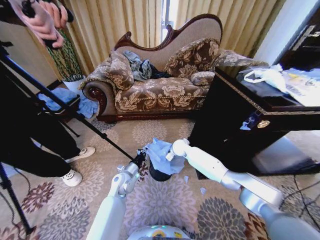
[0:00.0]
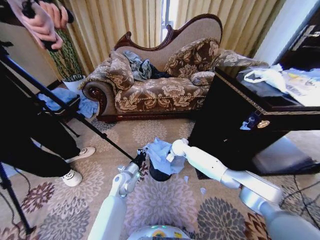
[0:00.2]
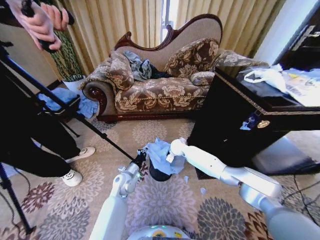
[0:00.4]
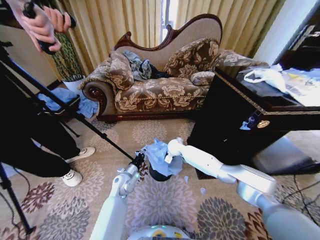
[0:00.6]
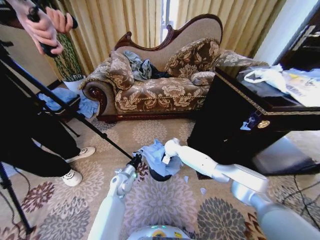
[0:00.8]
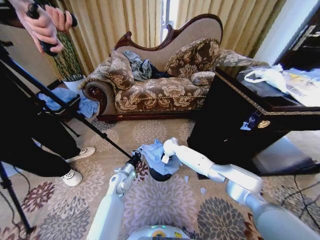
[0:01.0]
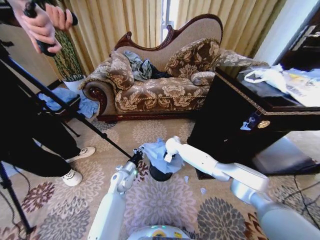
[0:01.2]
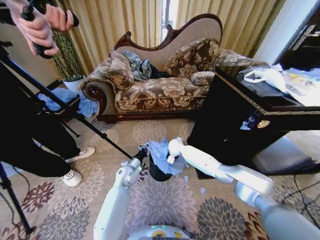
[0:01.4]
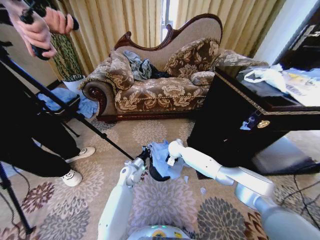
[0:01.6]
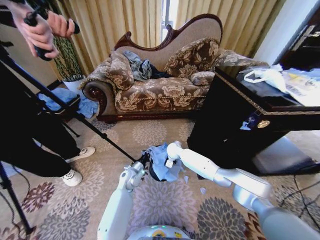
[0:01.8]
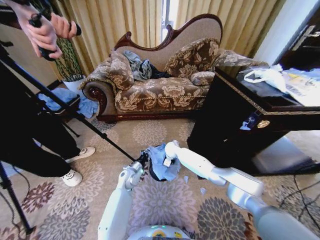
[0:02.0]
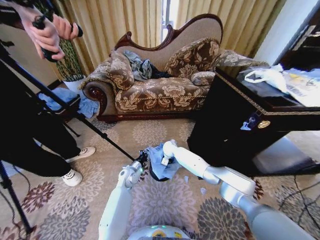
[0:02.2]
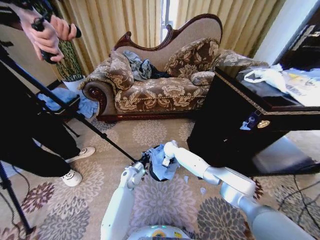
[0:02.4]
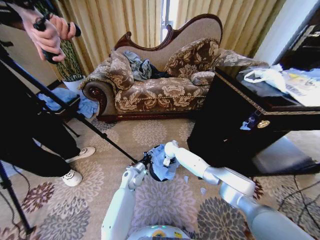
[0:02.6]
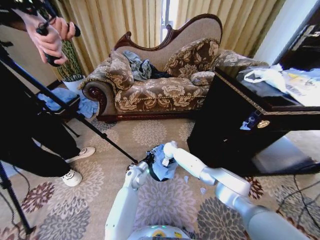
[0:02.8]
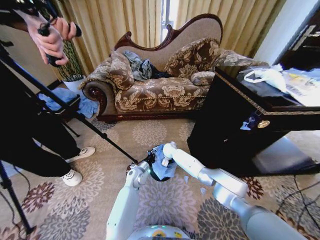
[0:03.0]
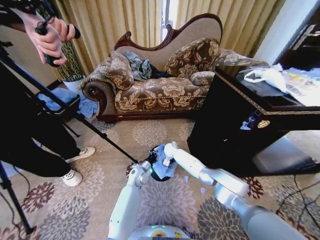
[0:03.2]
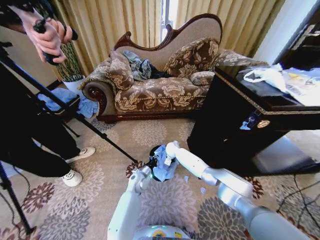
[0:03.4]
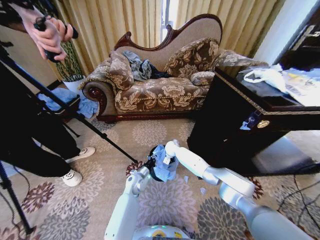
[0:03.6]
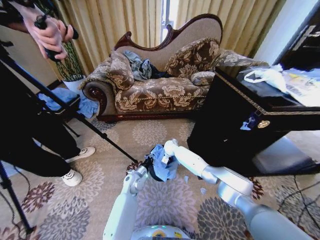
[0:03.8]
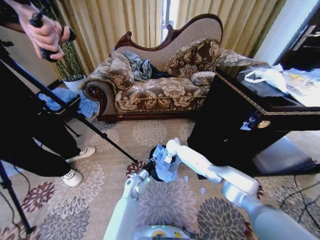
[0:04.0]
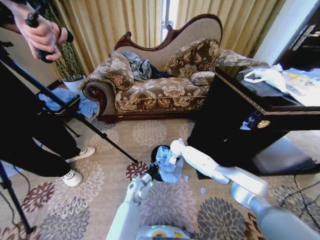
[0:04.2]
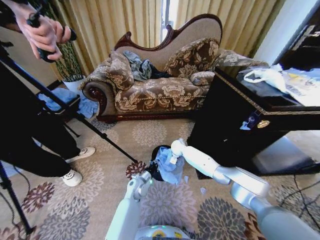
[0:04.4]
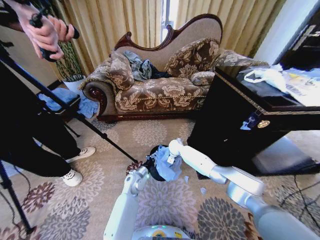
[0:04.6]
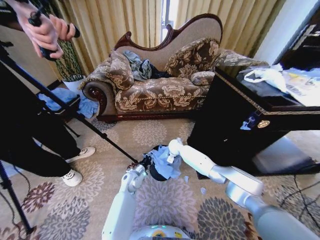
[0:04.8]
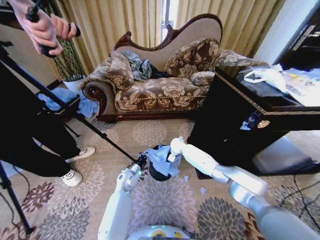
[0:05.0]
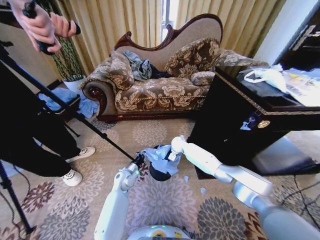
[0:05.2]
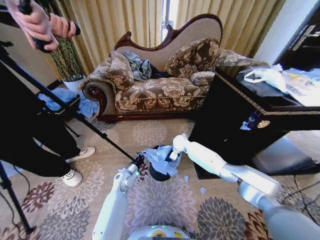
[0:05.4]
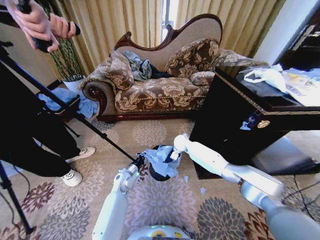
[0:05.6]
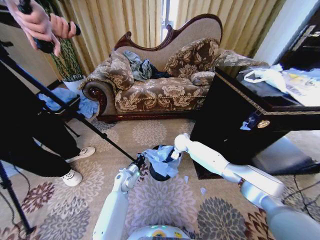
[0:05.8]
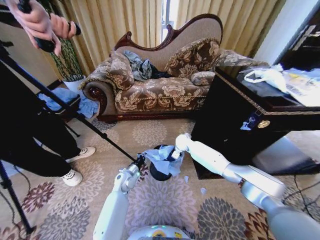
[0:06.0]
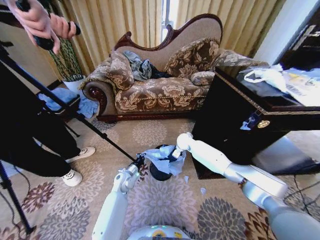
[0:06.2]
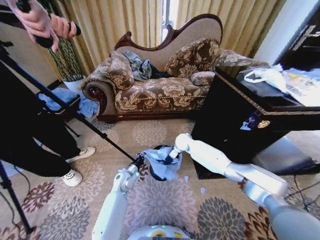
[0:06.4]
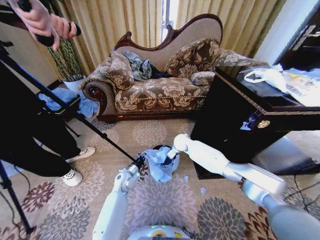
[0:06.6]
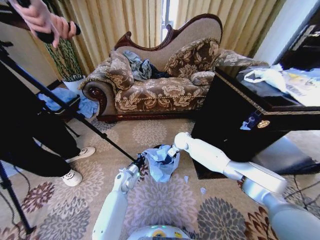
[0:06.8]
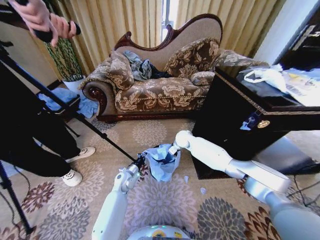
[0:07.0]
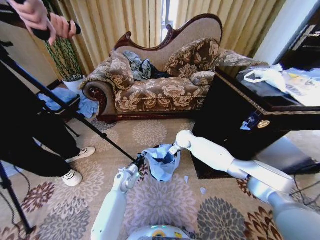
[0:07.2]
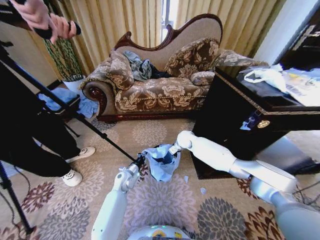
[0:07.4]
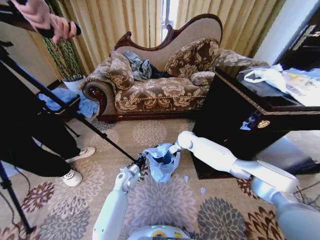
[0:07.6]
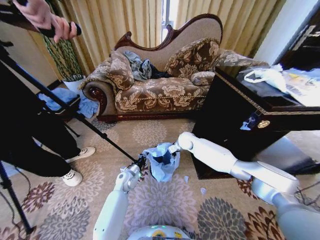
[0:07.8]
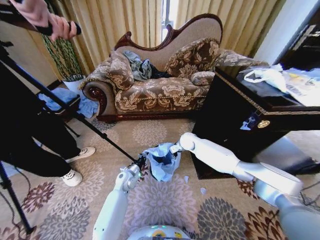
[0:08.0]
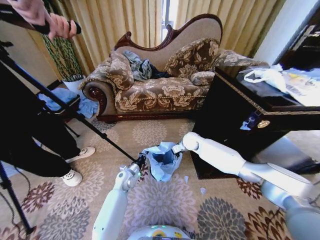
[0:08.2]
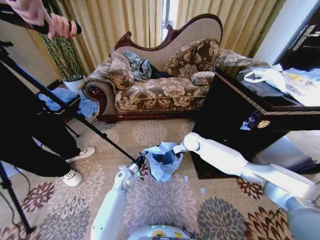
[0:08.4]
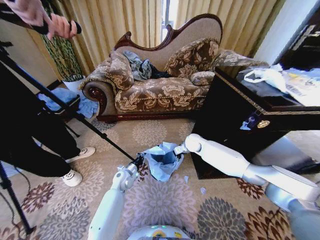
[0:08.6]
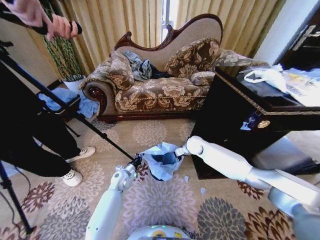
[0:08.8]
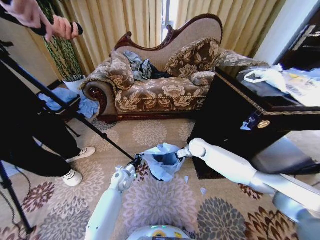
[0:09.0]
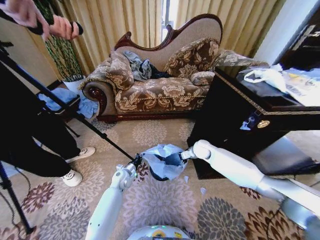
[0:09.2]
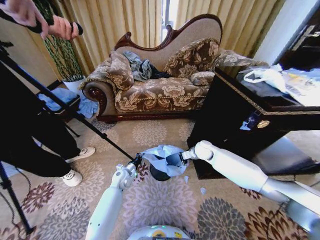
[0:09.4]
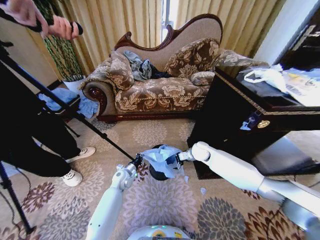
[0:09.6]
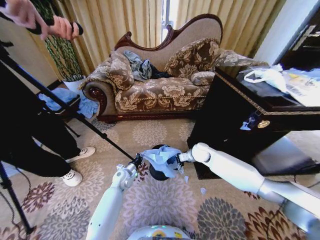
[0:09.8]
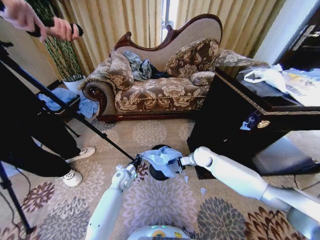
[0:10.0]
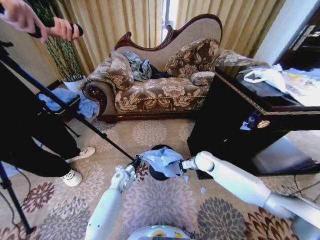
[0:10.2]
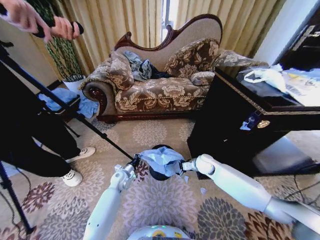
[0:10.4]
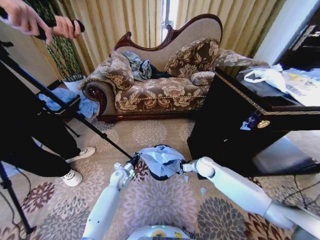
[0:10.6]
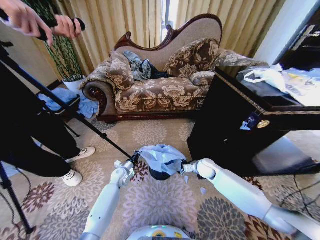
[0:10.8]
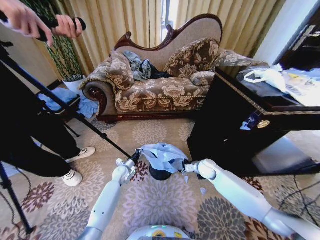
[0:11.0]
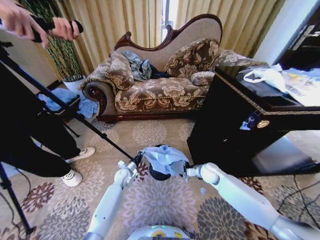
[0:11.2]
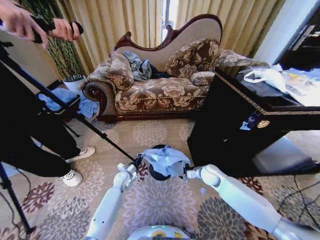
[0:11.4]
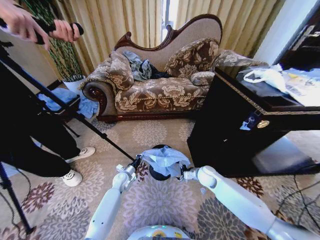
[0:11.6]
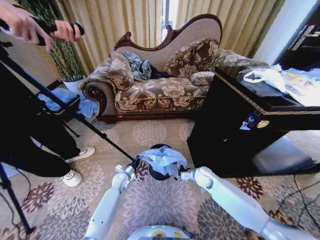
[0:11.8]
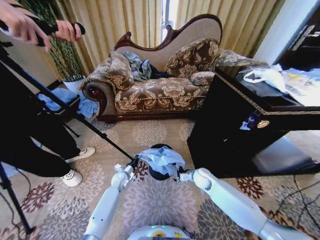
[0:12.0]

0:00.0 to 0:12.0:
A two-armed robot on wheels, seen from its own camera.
Task of the whole recording: Place a garbage bag over the trash bin.
0:00.0 to 0:01.6: The left gripper ends up approximately 5 cm from where it was.
0:01.6 to 0:03.0: The right gripper heads downward, covering about 5 cm.
0:03.0 to 0:04.4: The right gripper moves roughly 5 cm.
0:04.4 to 0:06.0: The left gripper heads to the left, covering roughly 5 cm, while the right gripper goes some 5 cm upward, and opens up.
0:06.0 to 0:07.6: The right gripper opens up.
0:07.6 to 0:09.0: The right gripper heads to the right, covering approximately 5 cm.
0:09.0 to 0:10.4: The right gripper goes roughly 10 cm backward and downward.
0:10.4 to 0:12.0: The right gripper goes some 5 cm downward.

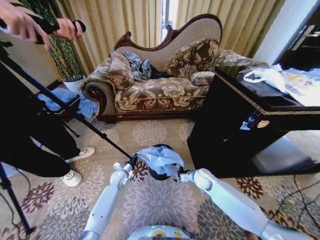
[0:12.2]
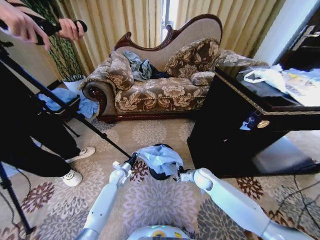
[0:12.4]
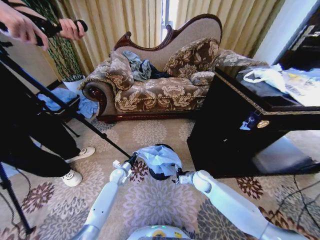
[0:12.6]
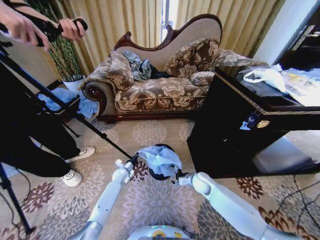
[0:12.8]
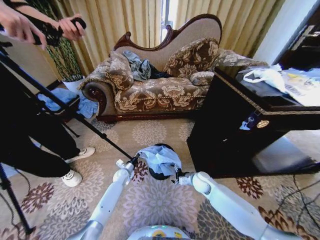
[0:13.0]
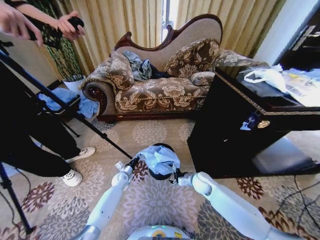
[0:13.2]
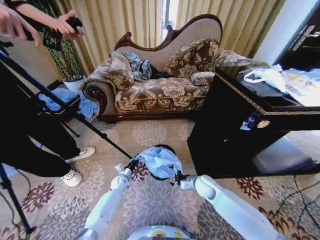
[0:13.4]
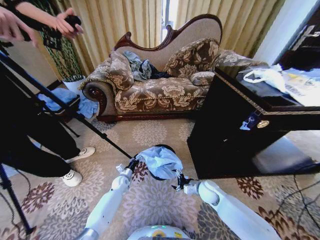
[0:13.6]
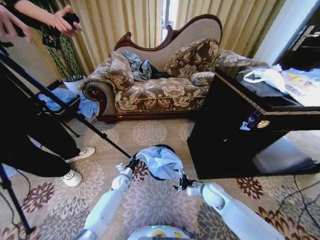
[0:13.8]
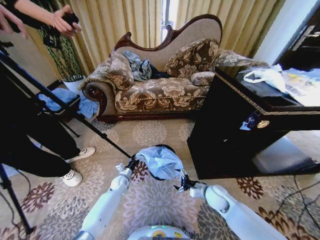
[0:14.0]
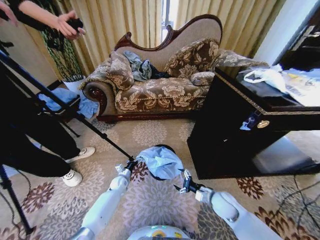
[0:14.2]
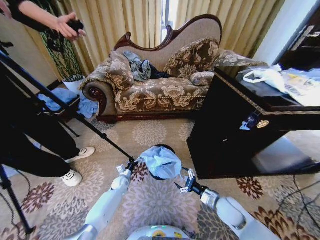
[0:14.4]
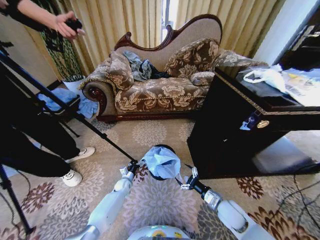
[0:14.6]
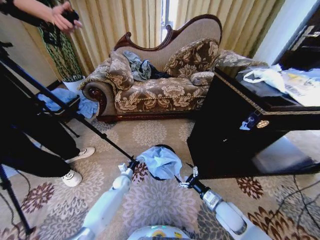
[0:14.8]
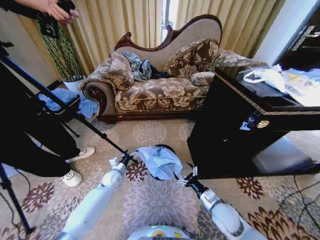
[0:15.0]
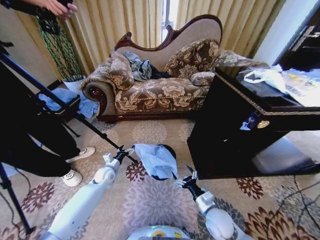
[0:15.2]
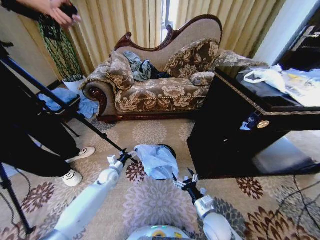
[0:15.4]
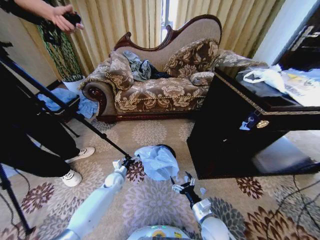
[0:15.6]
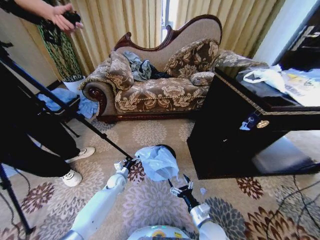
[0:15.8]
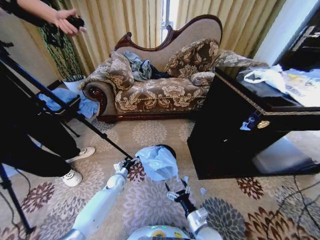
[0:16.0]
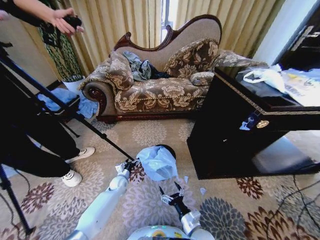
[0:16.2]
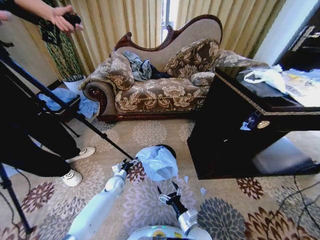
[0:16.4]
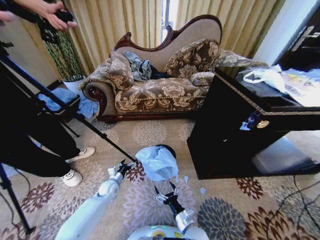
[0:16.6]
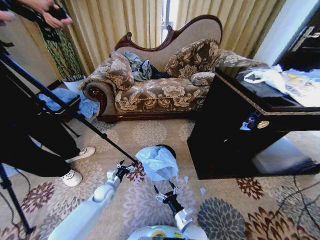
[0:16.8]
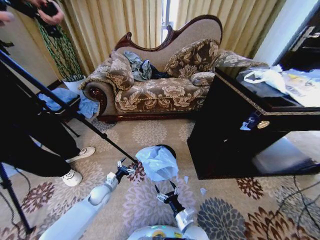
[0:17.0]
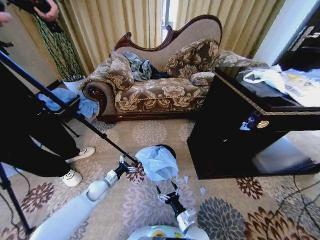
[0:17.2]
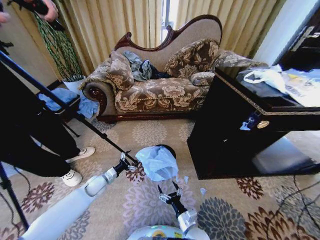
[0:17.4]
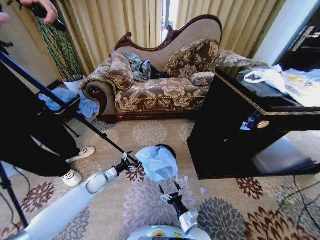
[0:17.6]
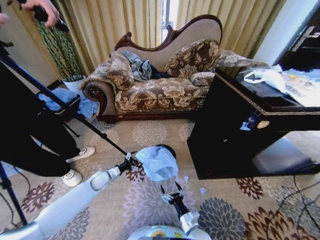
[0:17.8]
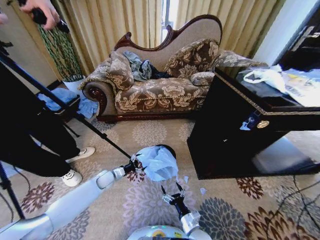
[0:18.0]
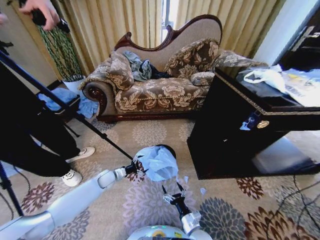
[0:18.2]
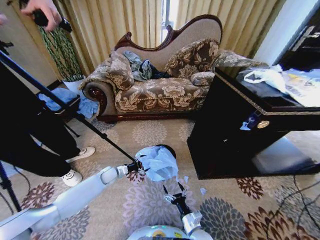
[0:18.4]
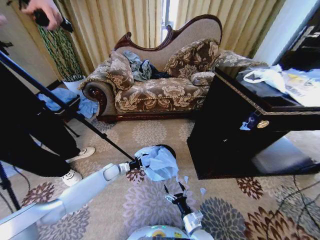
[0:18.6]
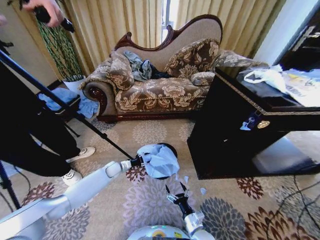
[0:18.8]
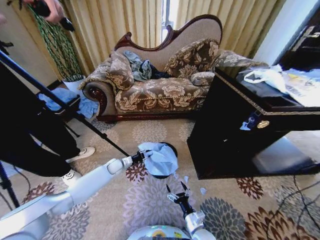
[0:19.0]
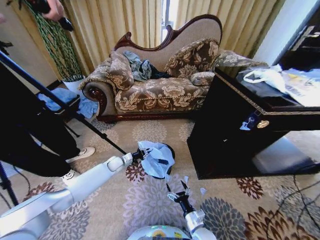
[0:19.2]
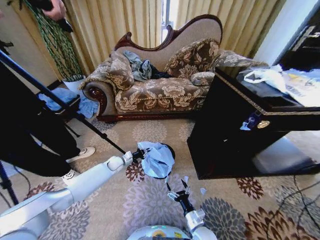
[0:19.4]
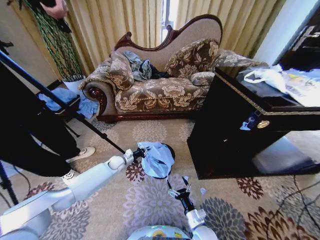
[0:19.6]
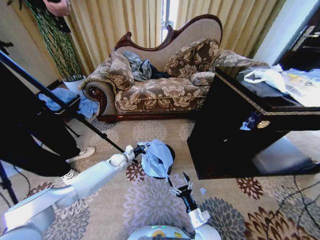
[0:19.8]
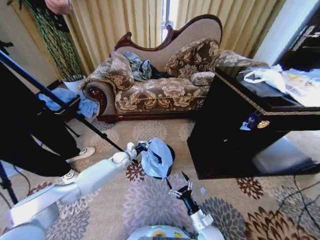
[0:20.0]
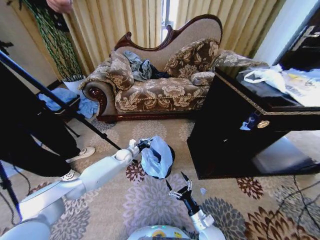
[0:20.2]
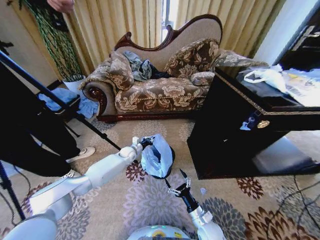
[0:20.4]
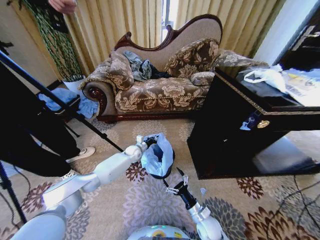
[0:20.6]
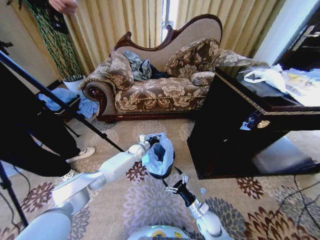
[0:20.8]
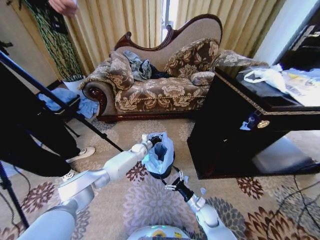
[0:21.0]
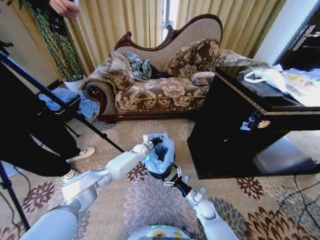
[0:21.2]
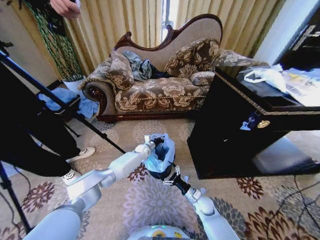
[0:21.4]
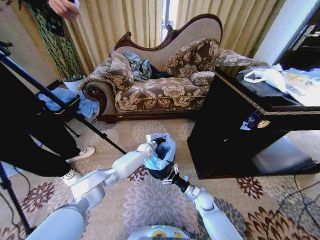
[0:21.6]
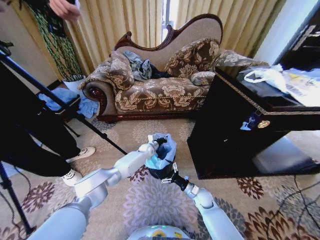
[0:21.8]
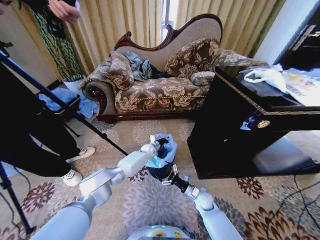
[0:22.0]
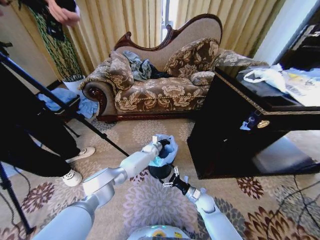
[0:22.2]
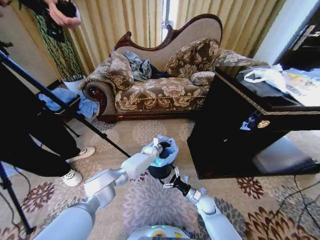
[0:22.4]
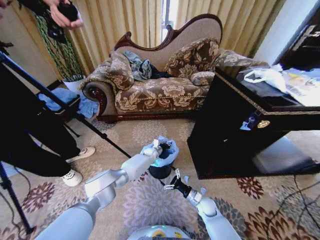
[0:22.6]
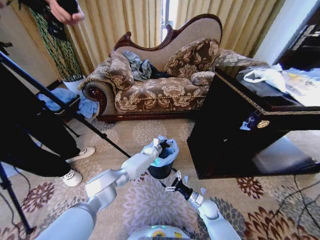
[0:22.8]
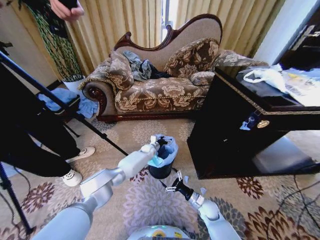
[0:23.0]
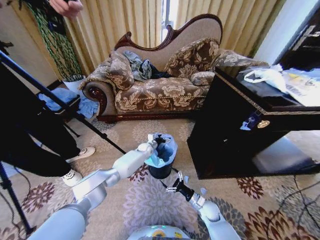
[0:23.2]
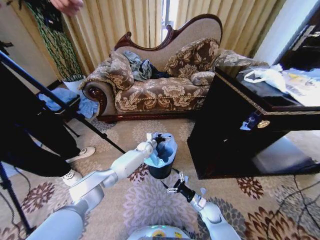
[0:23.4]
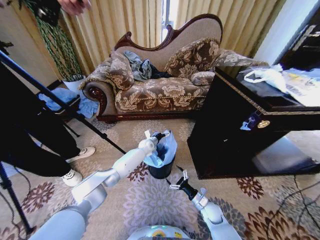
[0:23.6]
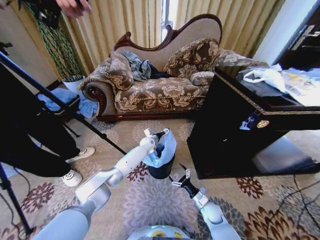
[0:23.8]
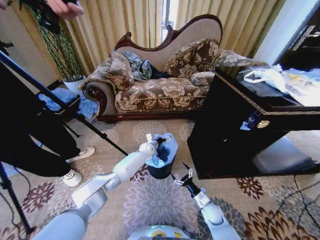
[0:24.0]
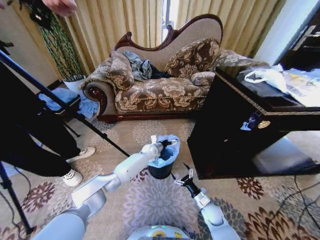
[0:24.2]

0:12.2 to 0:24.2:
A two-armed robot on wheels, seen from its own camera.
Task of the whole recording: Place a garbage bag over the trash bin.
0:12.2 to 0:13.8: The right gripper shifts some 5 cm backward, while the left gripper opens up.
0:13.8 to 0:15.2: The left gripper is displaced upward and to the left by about 10 cm. The right gripper moves backward, about 10 cm.
0:15.2 to 0:16.6: The left gripper moves downward, some 5 cm; the right gripper travels to the left, downward and backward by about 15 cm.
0:16.6 to 0:18.2: The left gripper changes place by roughly 5 cm.
0:18.2 to 0:19.8: The left gripper goes some 10 cm forward and to the right, and closes up.
0:19.8 to 0:21.2: The left gripper heads to the right and forward, covering some 15 cm. Meanwhile the right gripper heads forward, covering about 10 cm.
0:21.2 to 0:22.6: The left gripper travels to the right by roughly 5 cm, and opens.
0:22.6 to 0:24.2: The left gripper goes approximately 5 cm upward, and opens.
